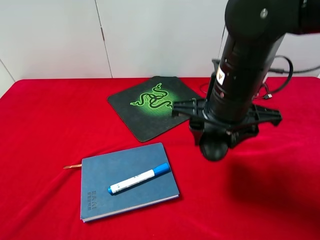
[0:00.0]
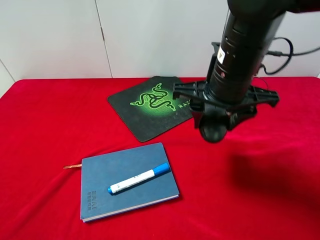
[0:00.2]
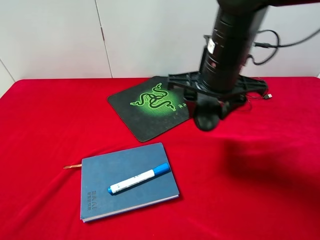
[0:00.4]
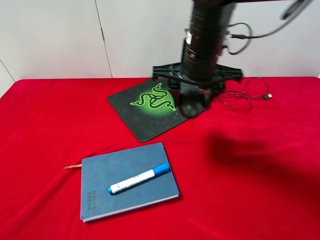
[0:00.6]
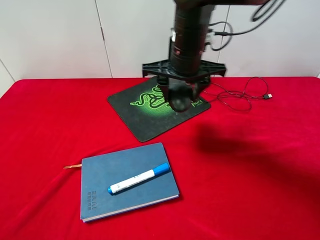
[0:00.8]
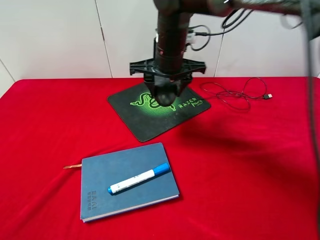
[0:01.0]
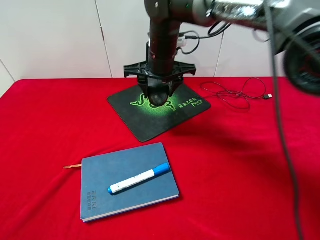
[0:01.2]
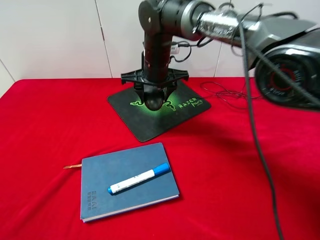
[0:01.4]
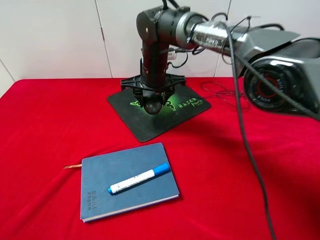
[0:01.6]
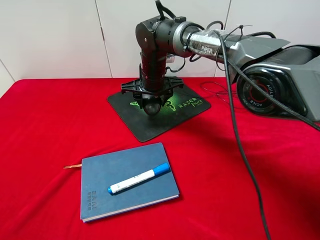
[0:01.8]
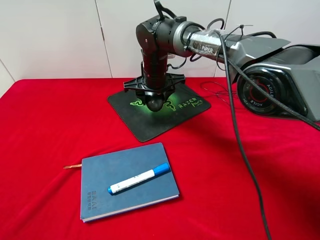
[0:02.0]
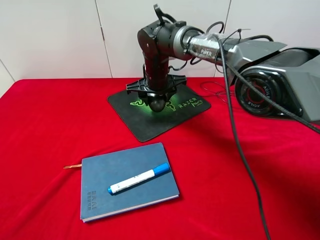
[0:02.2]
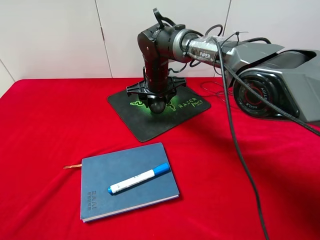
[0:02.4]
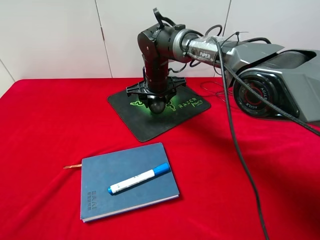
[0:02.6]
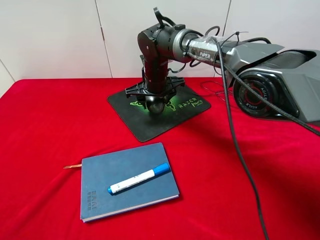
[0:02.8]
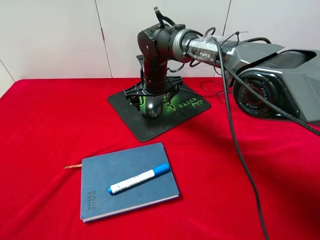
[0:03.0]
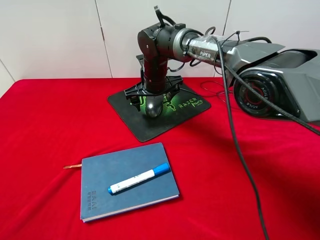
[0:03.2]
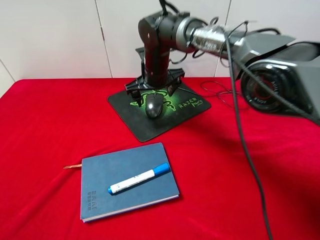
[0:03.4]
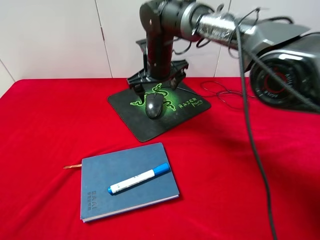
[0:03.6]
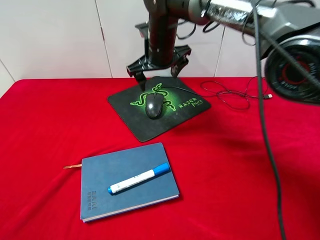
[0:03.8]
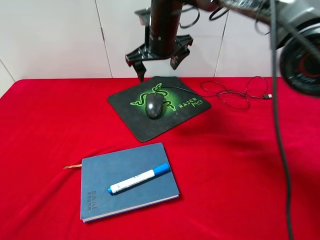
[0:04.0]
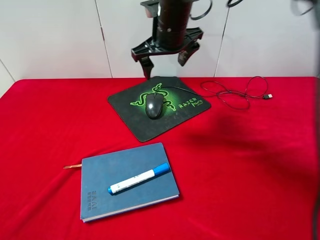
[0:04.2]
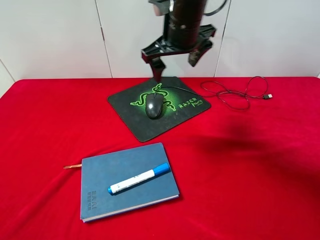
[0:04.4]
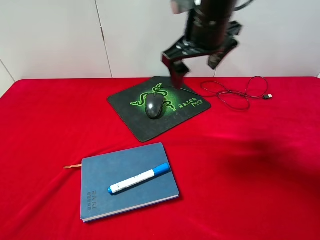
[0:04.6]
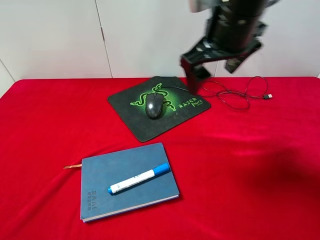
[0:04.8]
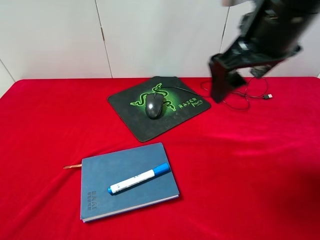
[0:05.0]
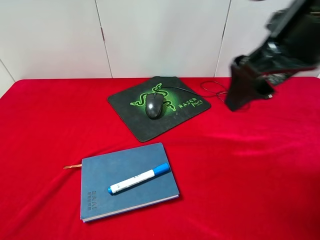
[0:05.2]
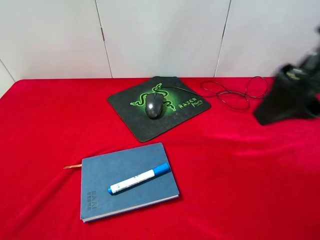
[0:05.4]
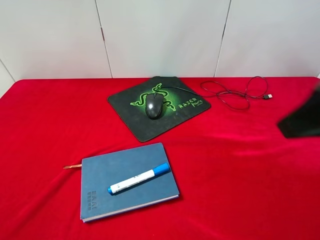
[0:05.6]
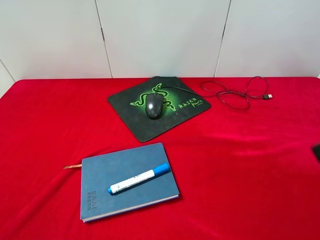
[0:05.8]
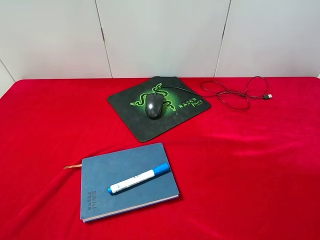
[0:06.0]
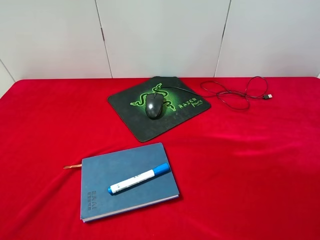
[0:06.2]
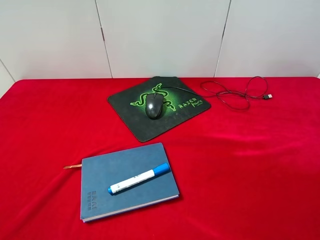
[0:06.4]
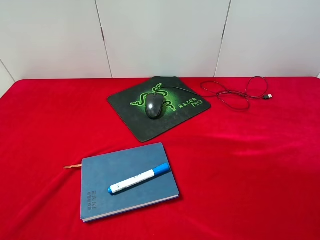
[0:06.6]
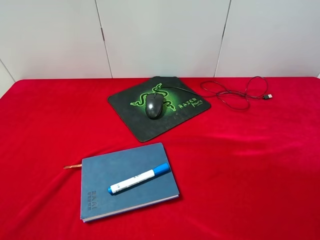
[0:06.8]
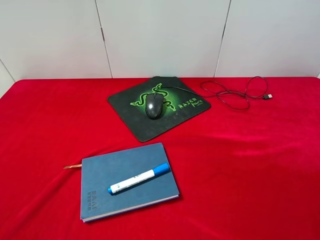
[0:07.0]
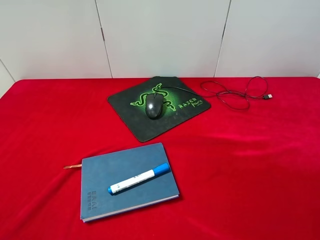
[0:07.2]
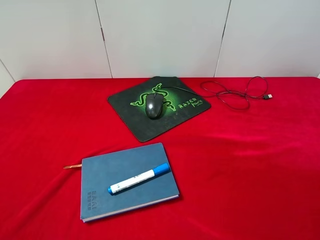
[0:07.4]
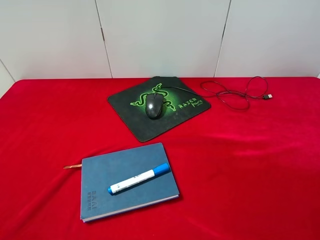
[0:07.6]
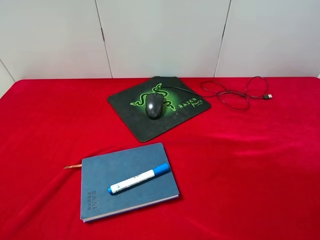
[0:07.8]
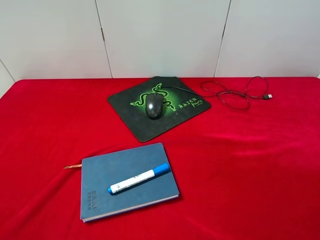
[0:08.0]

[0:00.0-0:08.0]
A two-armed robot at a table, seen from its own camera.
Step, 0:00.0 to 0:03.2: Place the mouse on the mouse pad with right gripper.
0:00.0 to 0:01.6: The right gripper goes roughly 25 cm forward, to the left and downward.
0:01.6 to 0:03.2: The right gripper opens up.
0:03.2 to 0:04.8: The right gripper goes some 25 cm upward, backward and to the right.
0:04.8 to 0:06.4: The right gripper heads backward and to the right, covering some 30 cm.
